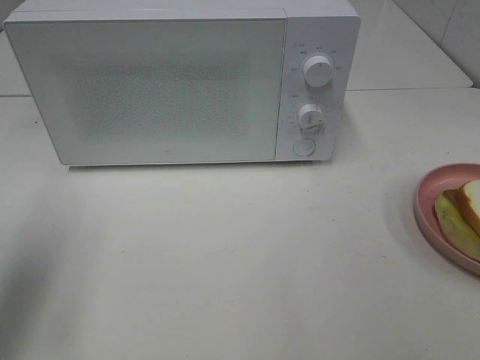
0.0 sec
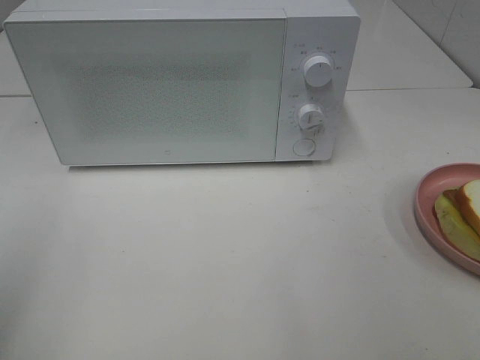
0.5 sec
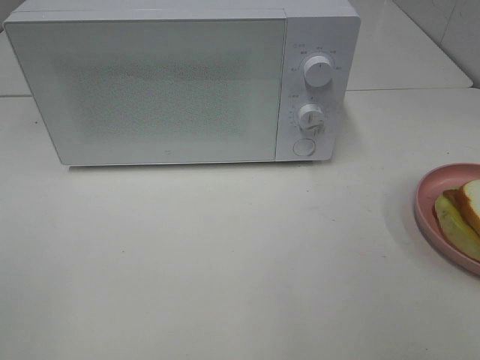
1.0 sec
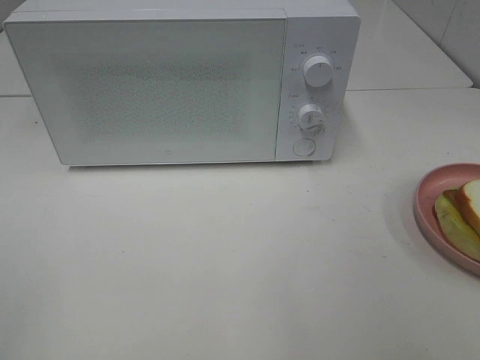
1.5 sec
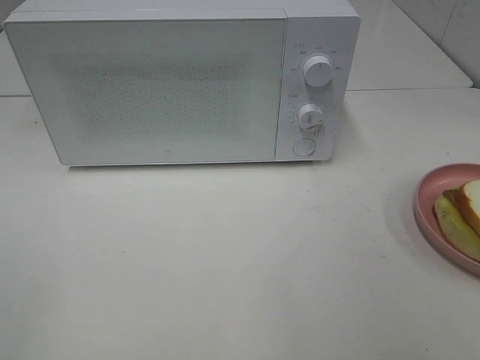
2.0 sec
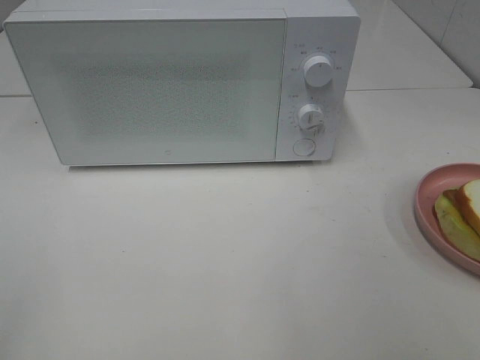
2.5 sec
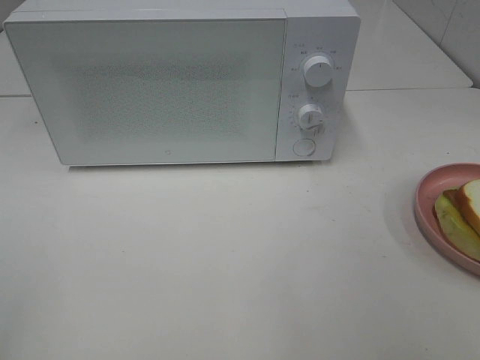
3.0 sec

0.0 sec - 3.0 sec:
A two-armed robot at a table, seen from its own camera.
Task of the whole recording: Heat Sandwich.
0.0 sec - 1.5 sec: The left gripper is displaced backward by about 20 cm.

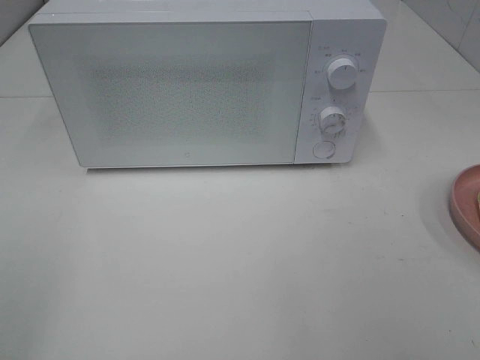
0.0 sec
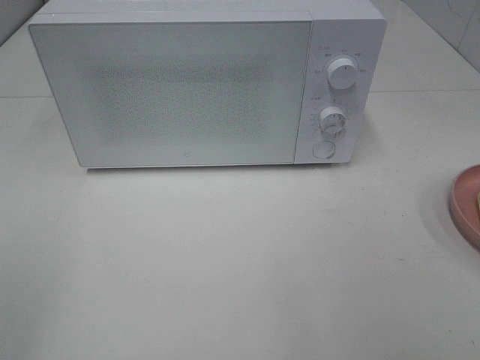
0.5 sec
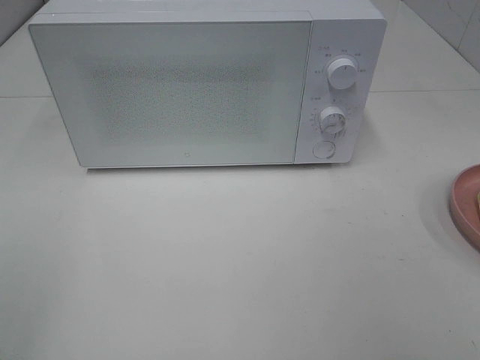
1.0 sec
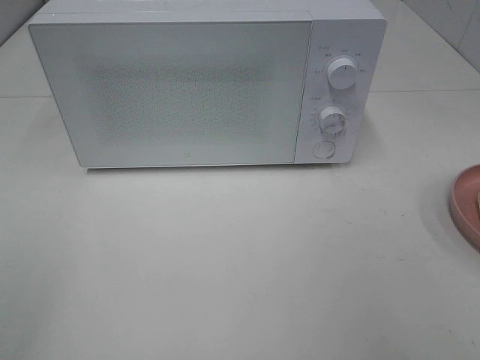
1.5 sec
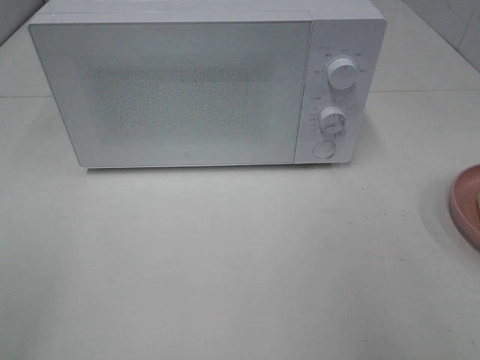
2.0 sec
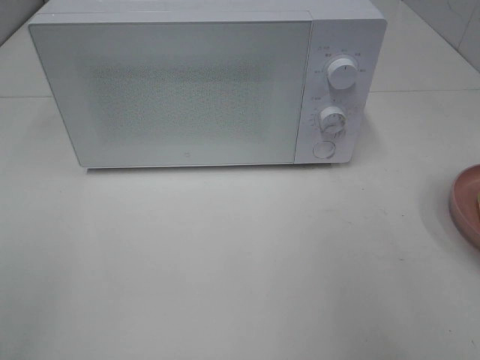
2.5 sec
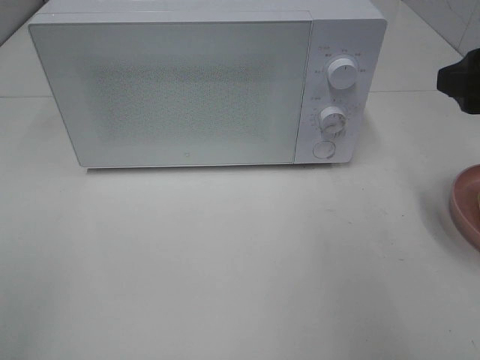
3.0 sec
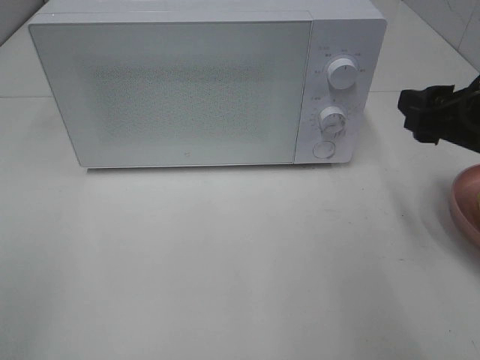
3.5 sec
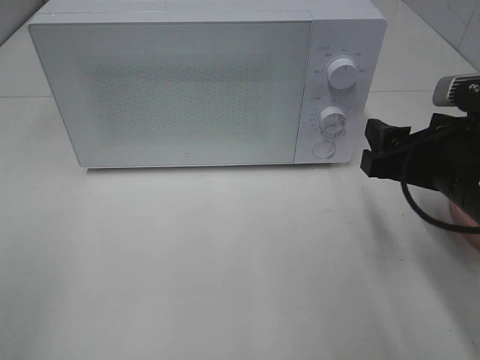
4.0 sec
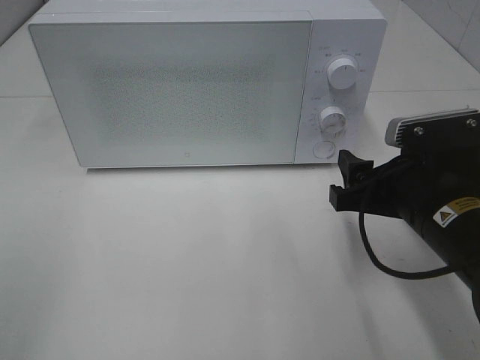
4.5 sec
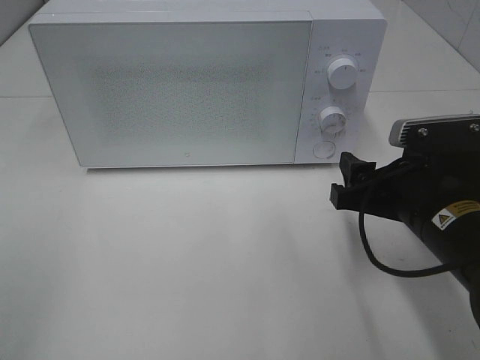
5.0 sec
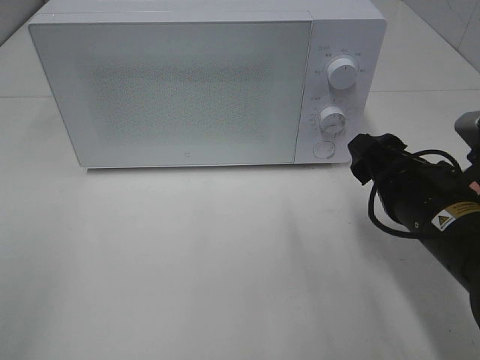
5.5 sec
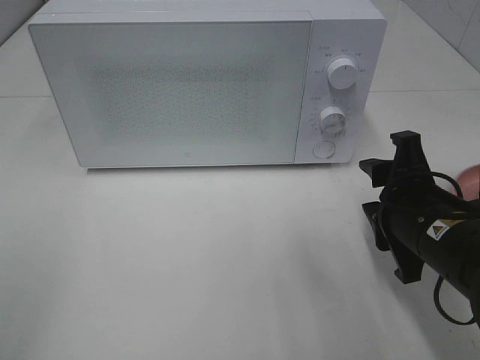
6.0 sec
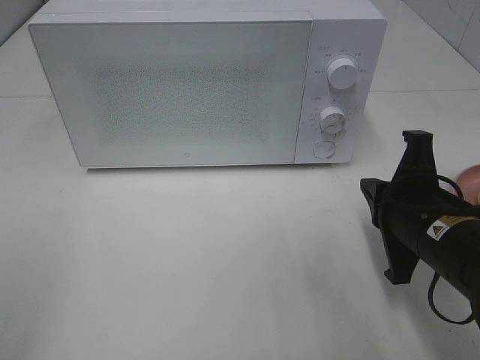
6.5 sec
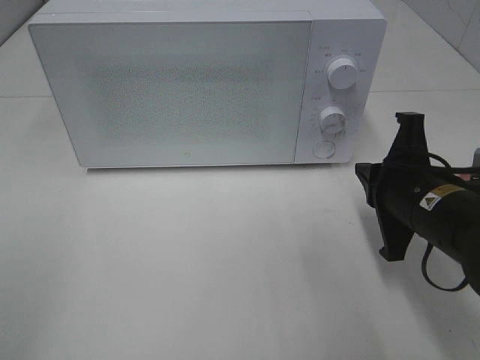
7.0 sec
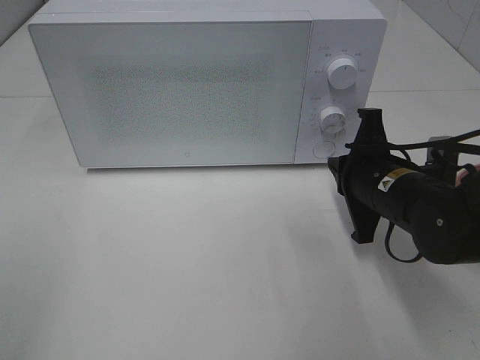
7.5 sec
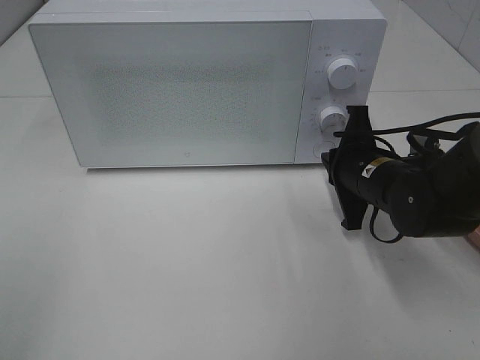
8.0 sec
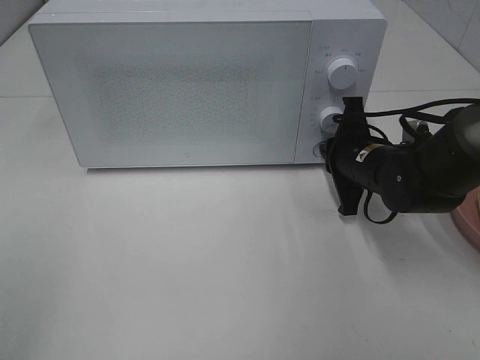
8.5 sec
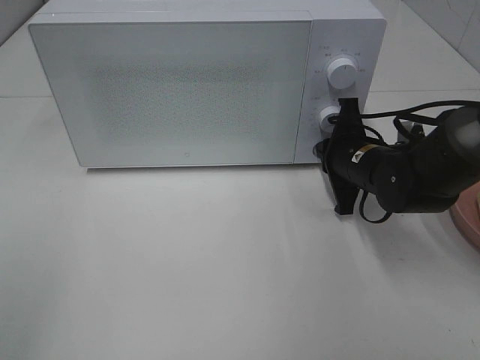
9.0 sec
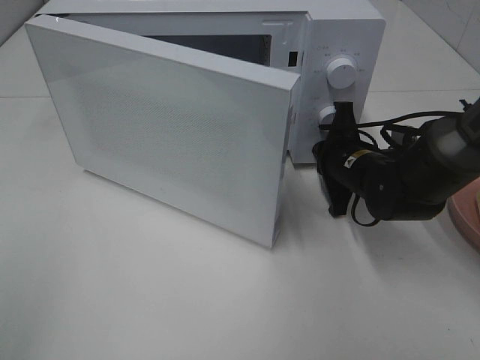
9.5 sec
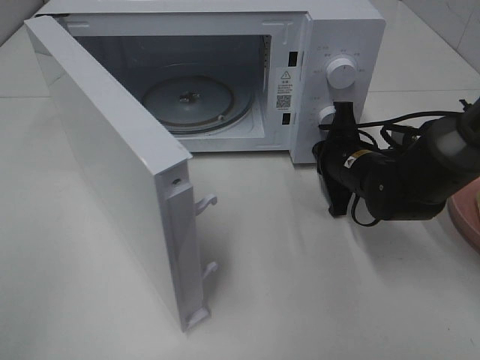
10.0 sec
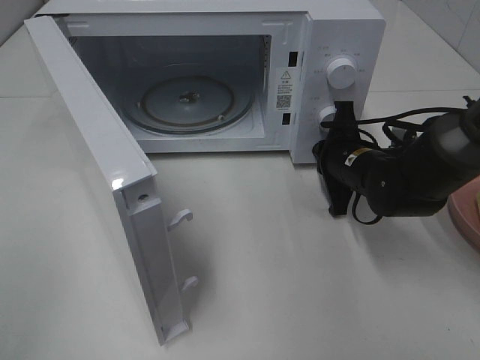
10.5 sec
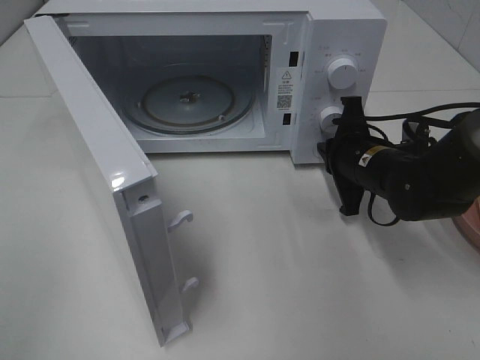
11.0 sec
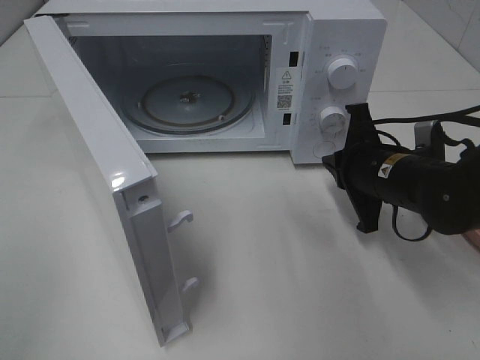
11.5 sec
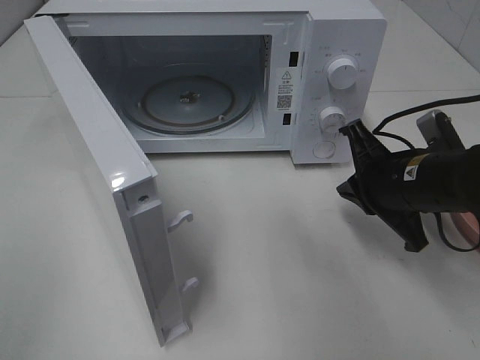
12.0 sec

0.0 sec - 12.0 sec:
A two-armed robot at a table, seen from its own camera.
Task of the whole recording: Heat Sandwich.
Step, 0.0 sec - 11.0 sec: Right hand: press the switch.
2.0 sec - 4.0 sec: The right gripper heads downward, forward and to the left, covering roughly 20 cm.
4.0 sec - 6.0 sec: The right gripper ends up roughly 5 cm from where it was.
6.0 sec - 8.0 sec: The right gripper is displaced forward by about 10 cm, and closes its fingers.
8.0 sec - 10.0 sec: The right gripper moves approximately 5 cm.
10.0 sec - 12.0 sec: The right gripper shifts approximately 10 cm backward and upward.

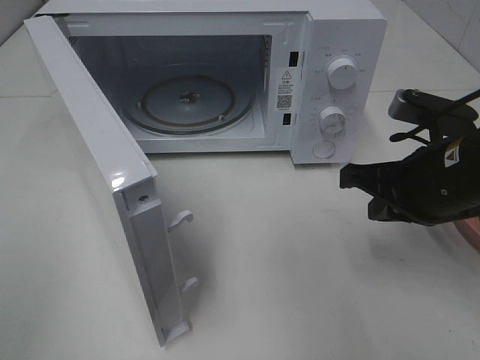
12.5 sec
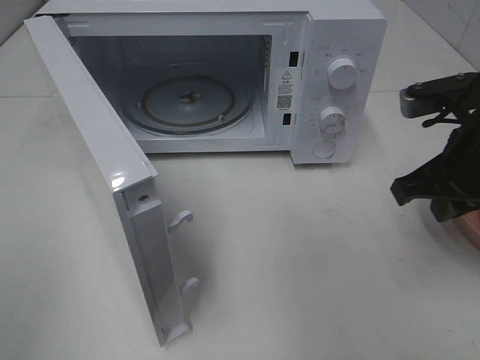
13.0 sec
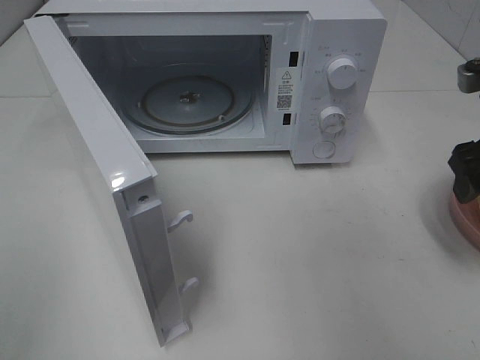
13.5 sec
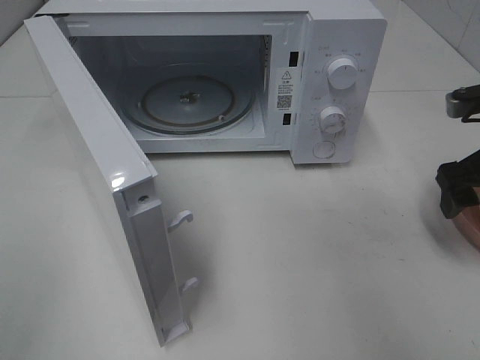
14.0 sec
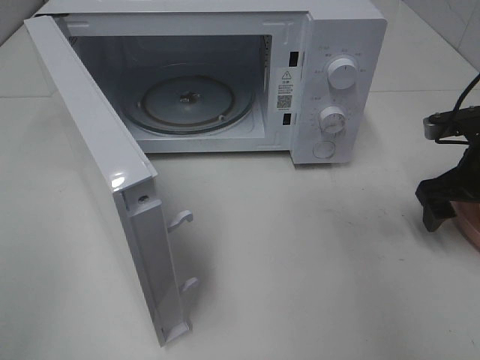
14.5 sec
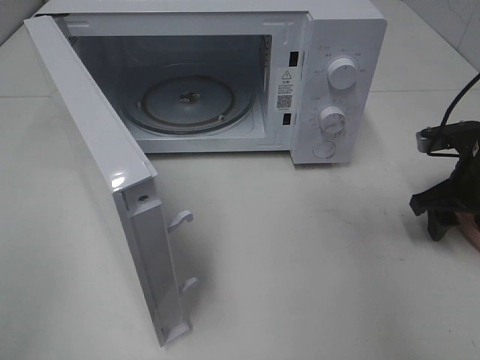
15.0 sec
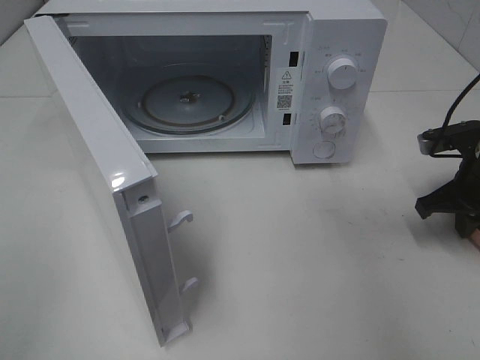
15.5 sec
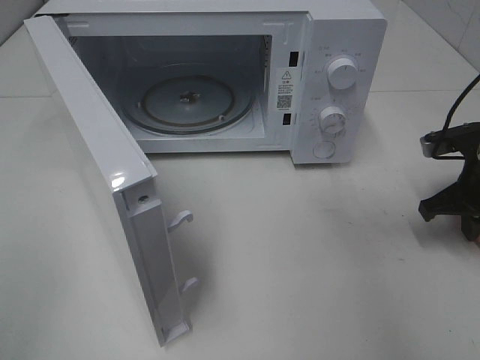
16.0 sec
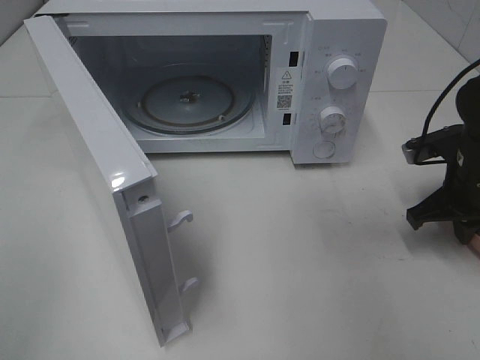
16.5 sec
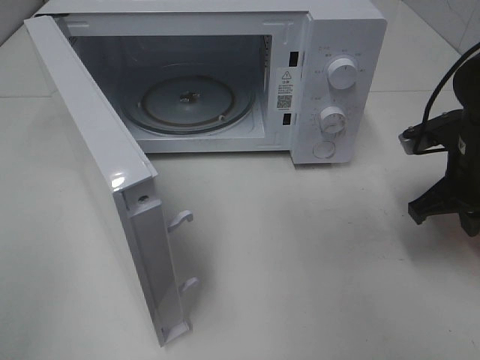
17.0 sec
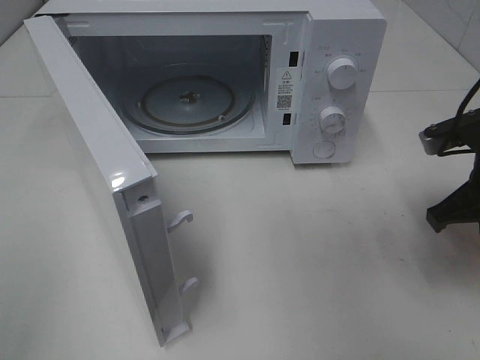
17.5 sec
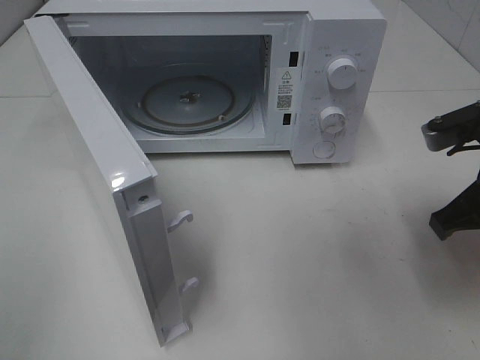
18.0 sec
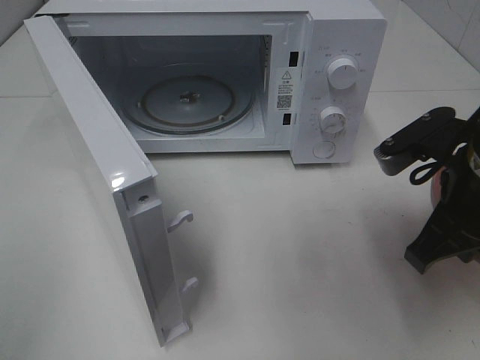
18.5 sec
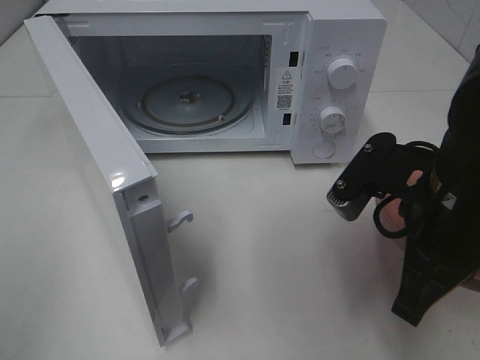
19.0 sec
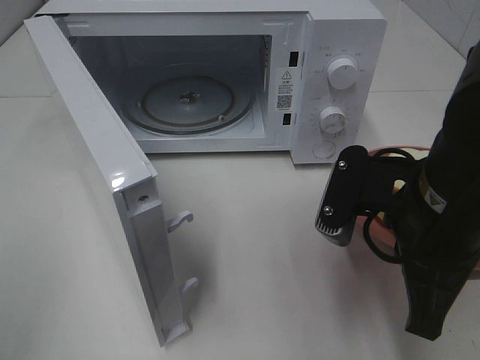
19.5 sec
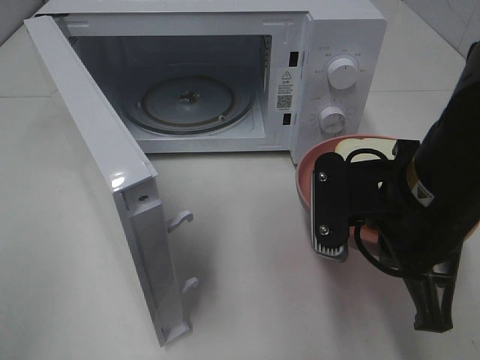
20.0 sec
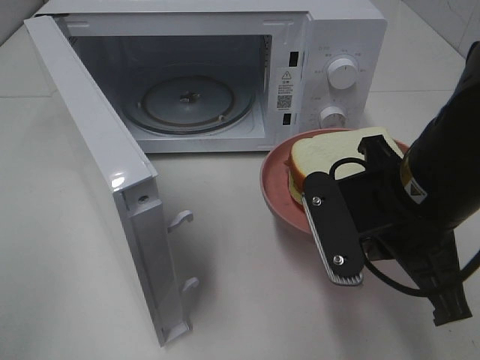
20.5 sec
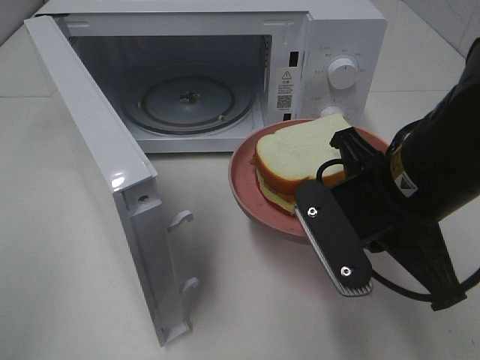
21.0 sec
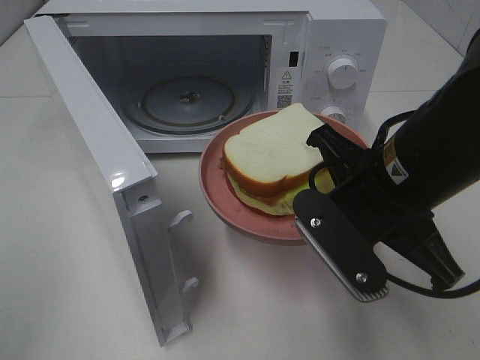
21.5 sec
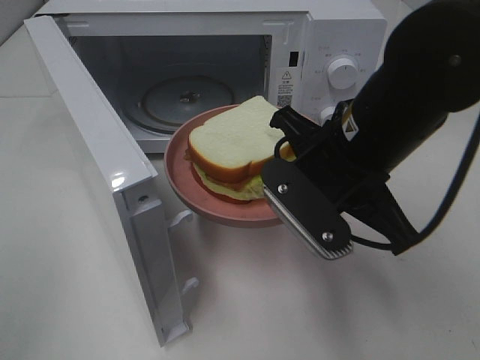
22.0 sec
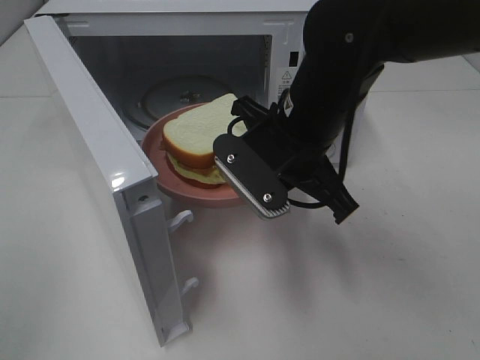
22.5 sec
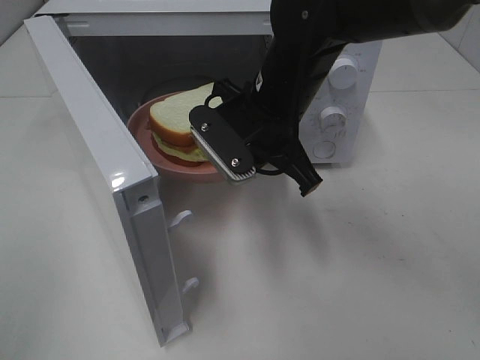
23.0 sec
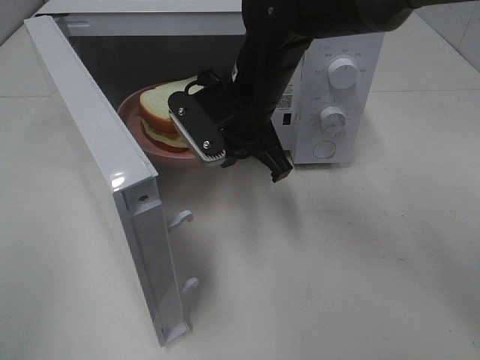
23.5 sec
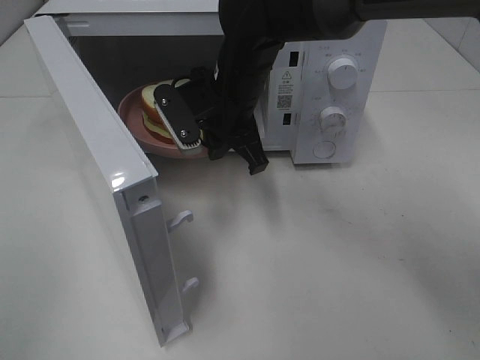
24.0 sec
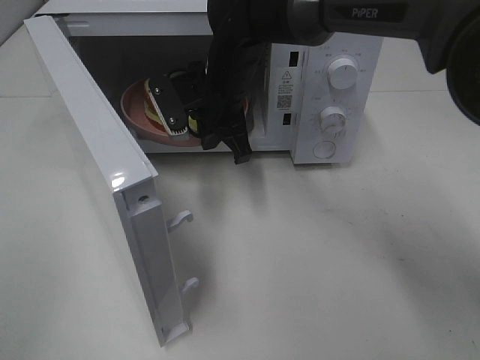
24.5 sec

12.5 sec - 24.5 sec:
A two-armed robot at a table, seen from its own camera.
Task of the whole recording: Heat Sandwich.
Step, 12.5 sec - 15.5 sec: Right hand: grab the plate with the sandwich.
12.5 sec - 14.5 sec: The right gripper shifts roughly 15 cm to the right and forward, and opens.
14.5 sec - 16.5 sec: The right gripper closes.
16.5 sec - 18.5 sec: The right gripper travels backward, upward and to the left by some 15 cm.
18.5 sec - 20.5 sec: The right gripper shifts roughly 5 cm to the left.
20.5 sec - 22.5 sec: The right gripper moves forward and to the left, about 10 cm.
22.5 sec - 24.5 sec: The right gripper moves forward and to the left, about 15 cm.
